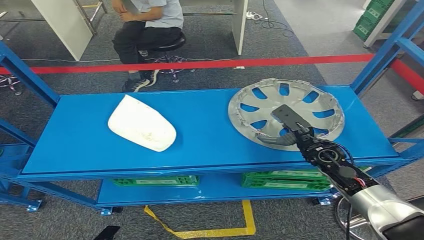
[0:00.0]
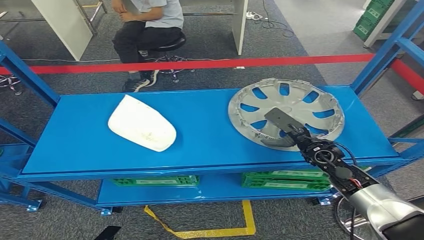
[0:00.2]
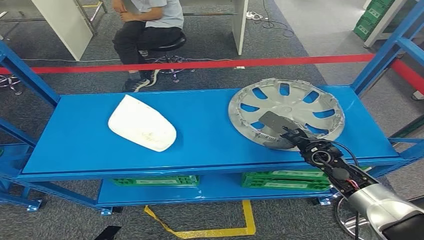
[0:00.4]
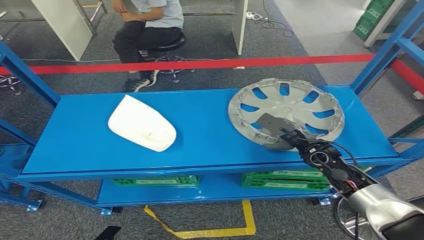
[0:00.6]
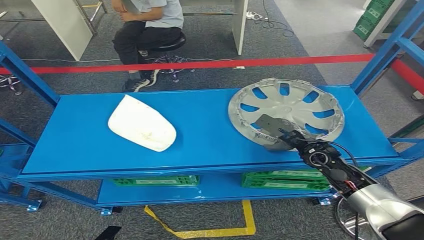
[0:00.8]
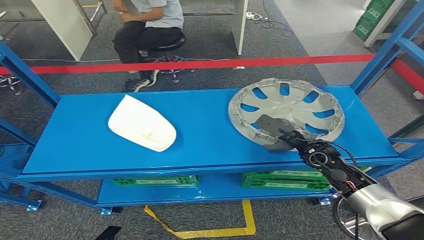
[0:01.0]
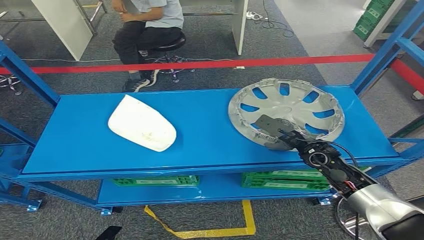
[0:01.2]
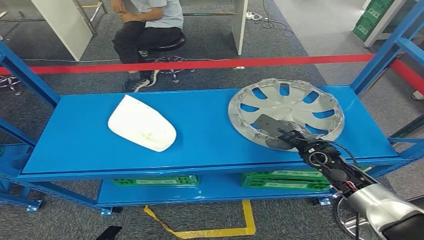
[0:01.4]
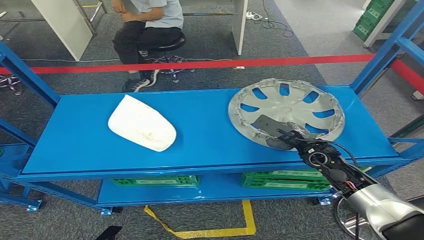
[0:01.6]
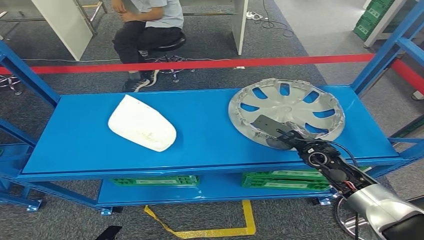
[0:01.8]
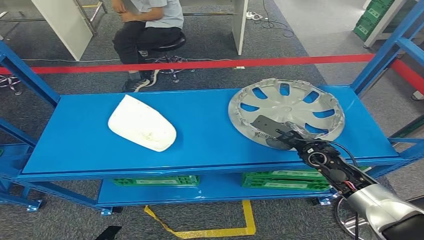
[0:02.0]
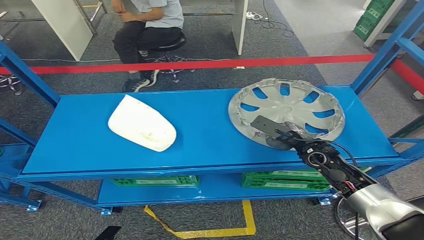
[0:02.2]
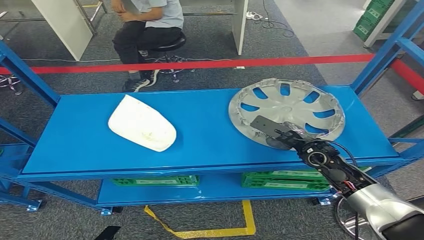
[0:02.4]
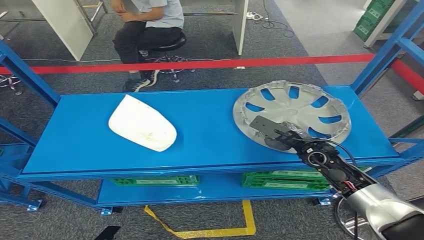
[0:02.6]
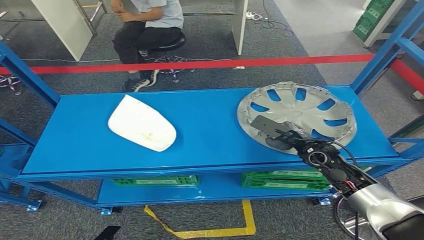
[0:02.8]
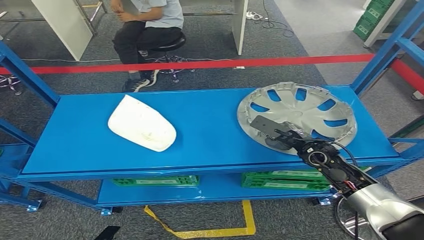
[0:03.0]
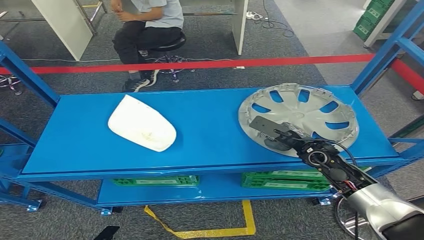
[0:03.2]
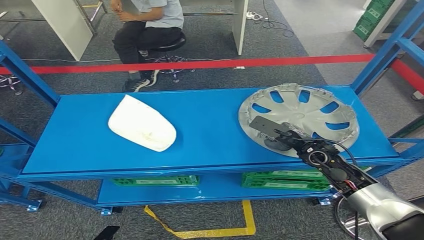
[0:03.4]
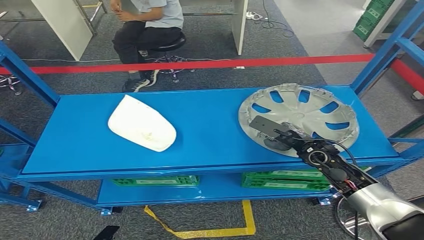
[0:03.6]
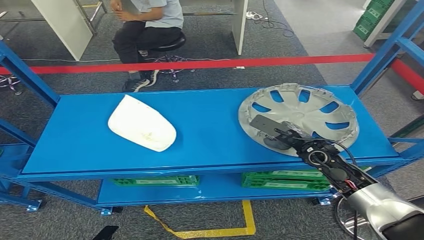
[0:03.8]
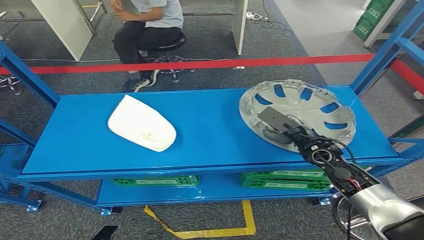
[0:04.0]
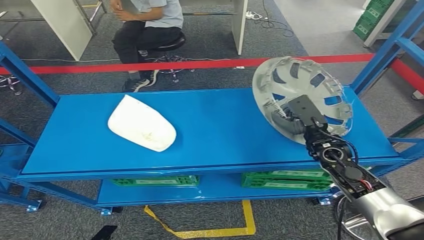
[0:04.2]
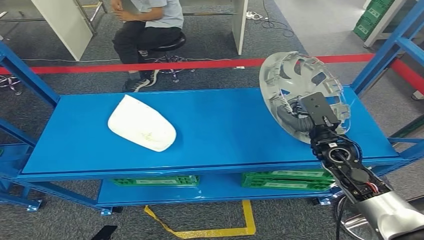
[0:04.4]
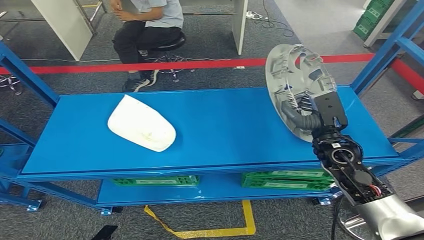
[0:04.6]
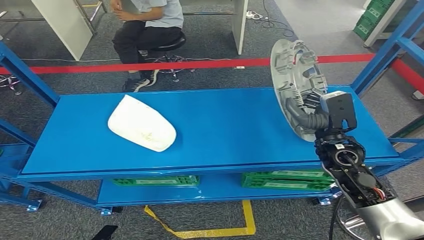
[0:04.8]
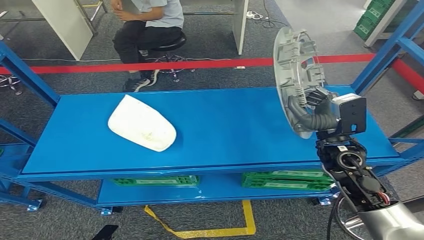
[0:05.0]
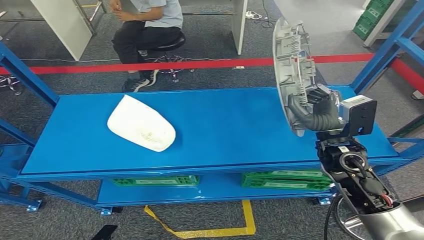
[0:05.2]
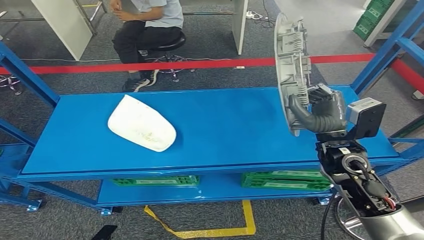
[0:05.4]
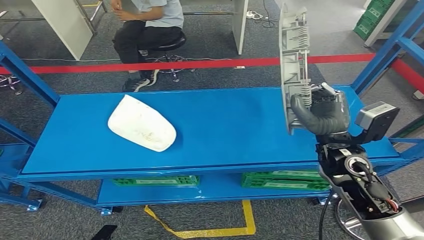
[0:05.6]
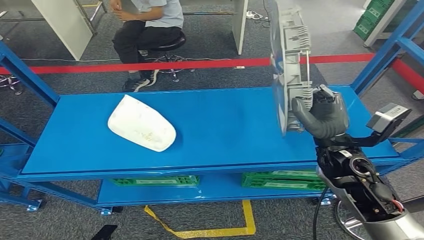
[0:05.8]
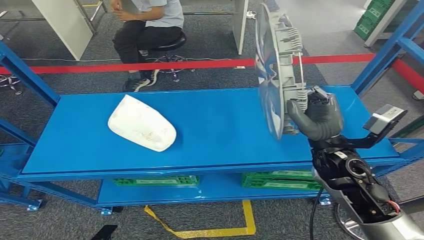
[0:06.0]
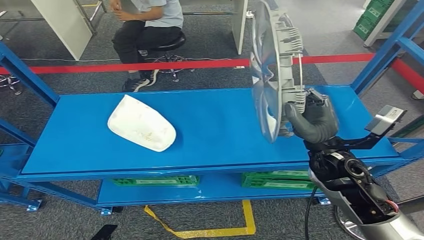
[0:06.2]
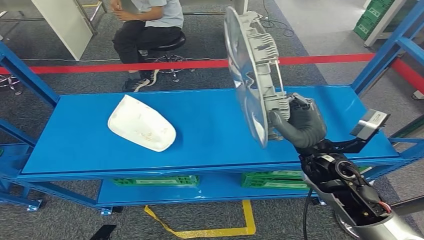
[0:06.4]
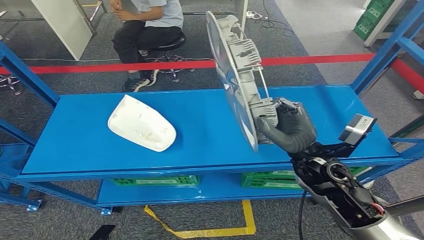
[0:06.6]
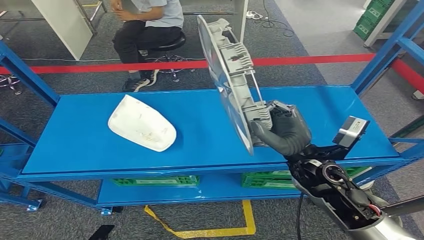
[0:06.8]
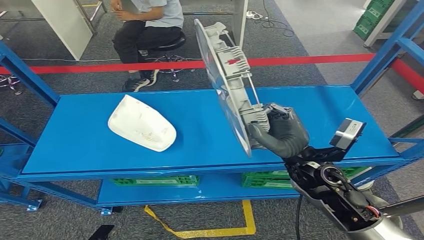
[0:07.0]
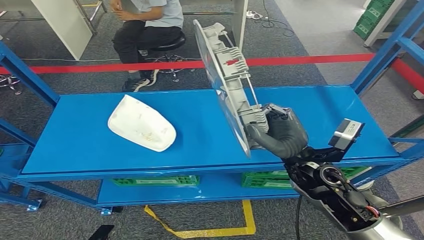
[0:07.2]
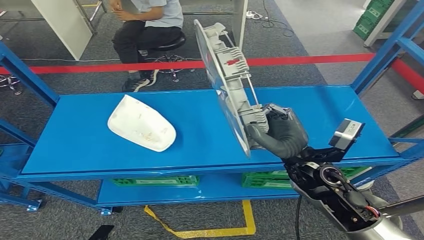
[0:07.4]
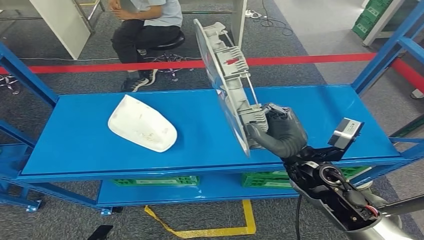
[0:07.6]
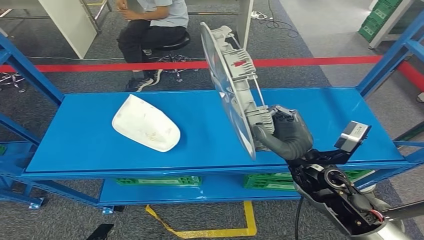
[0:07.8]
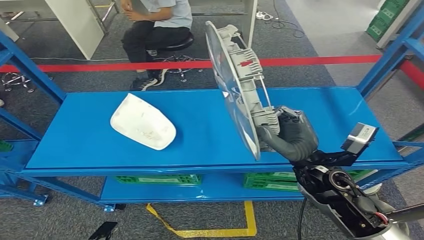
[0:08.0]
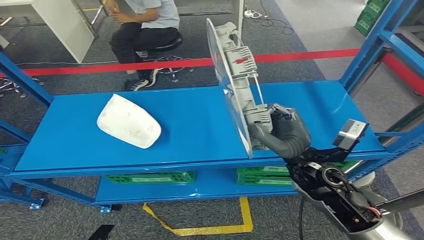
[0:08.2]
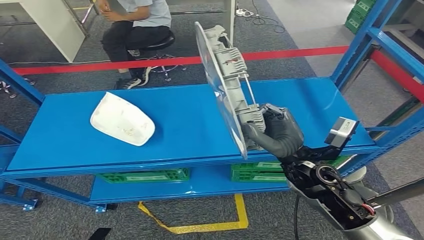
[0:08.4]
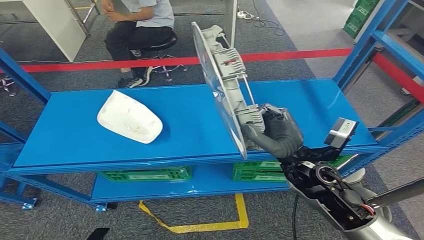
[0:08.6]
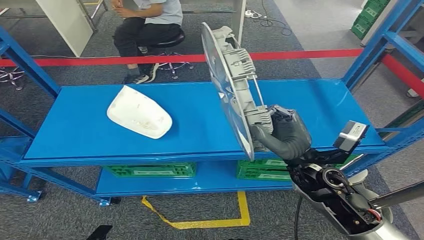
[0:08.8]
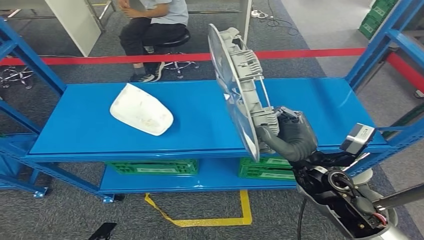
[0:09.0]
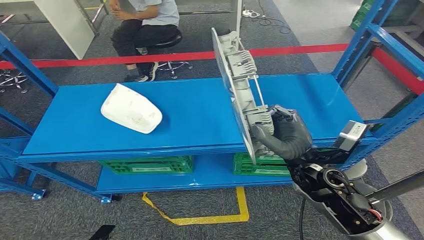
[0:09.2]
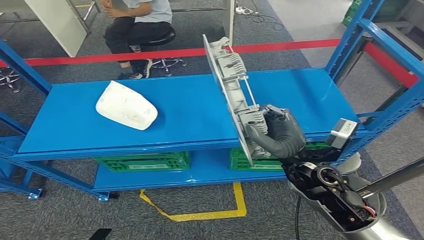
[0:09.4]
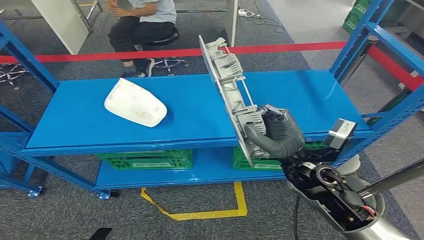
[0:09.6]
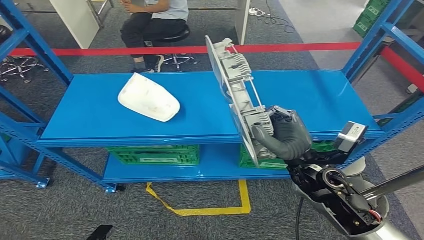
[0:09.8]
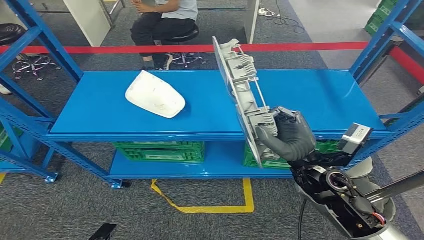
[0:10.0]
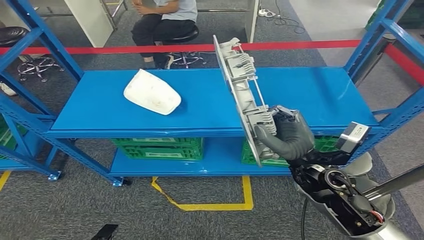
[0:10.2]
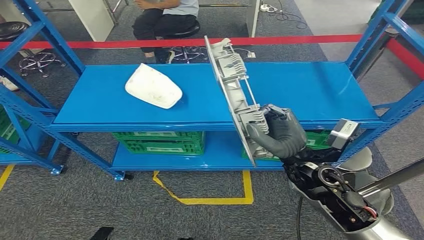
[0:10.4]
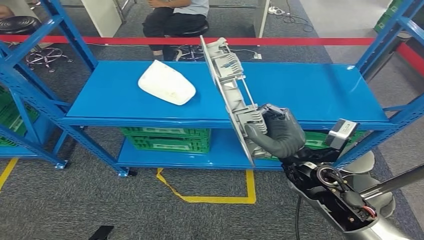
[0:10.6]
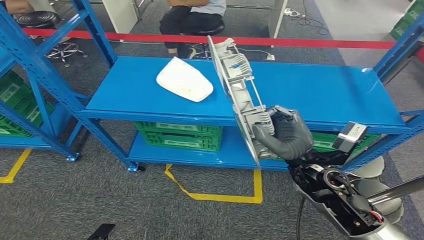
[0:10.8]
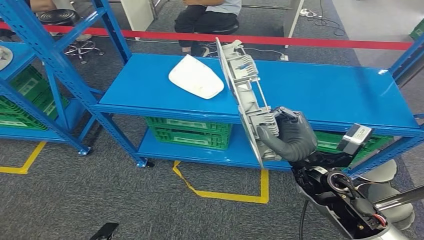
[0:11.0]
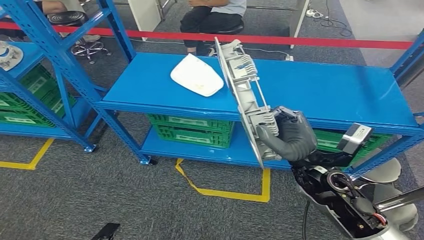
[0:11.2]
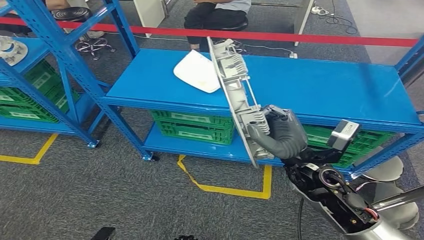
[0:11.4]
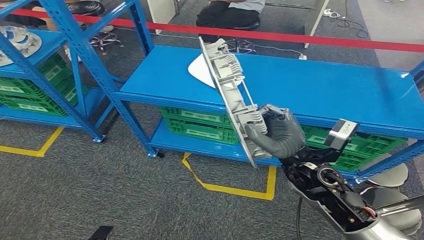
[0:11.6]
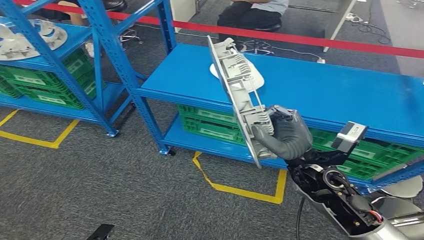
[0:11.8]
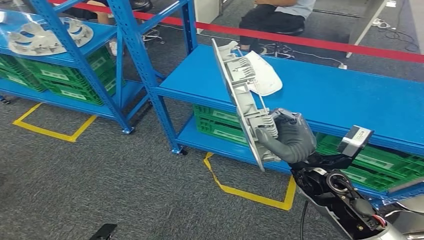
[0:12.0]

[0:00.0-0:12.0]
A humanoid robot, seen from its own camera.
Step, 0:00.0 to 0:06.6: Pick up the small parts from the shelf.
0:01.6 to 0:03.0: Both hands stay put.
0:04.4 to 0:06.0: The right hand goes approximately 10 cm backward and upward.
0:06.0 to 0:07.6: The right hand changes place by roughly 5 cm.

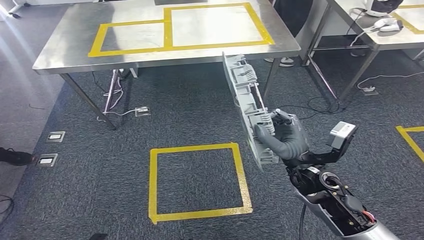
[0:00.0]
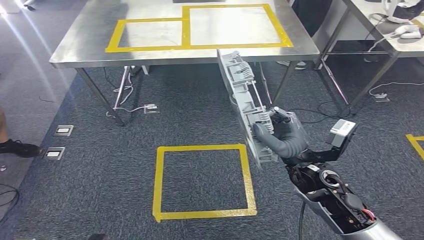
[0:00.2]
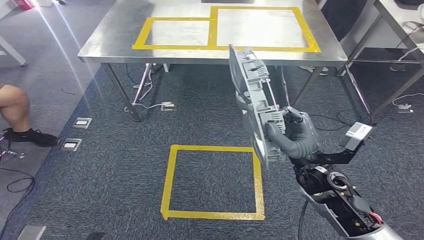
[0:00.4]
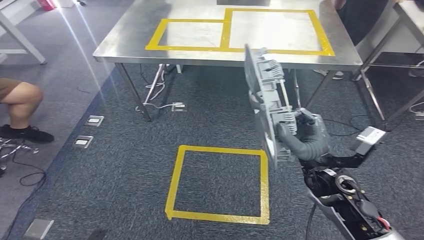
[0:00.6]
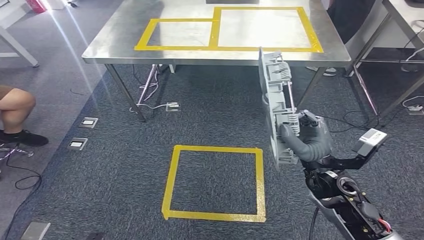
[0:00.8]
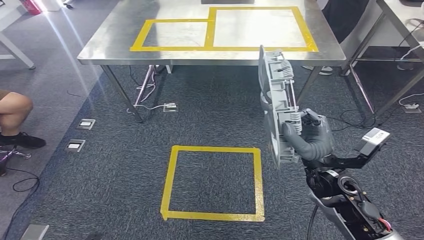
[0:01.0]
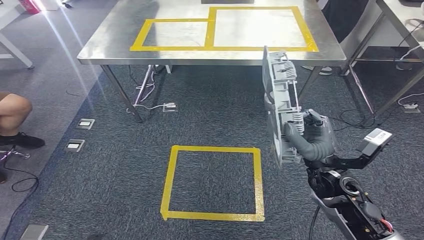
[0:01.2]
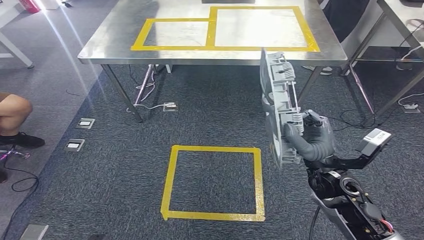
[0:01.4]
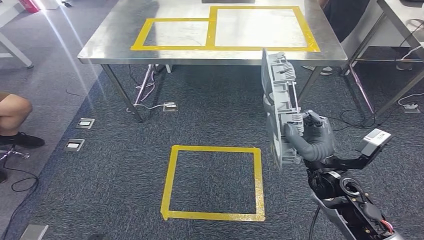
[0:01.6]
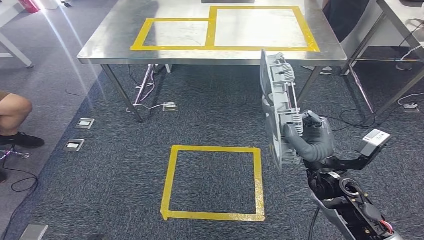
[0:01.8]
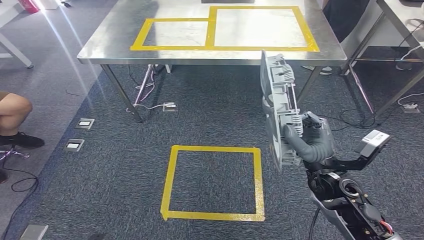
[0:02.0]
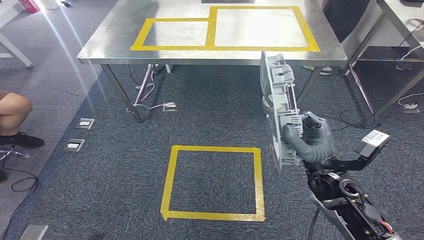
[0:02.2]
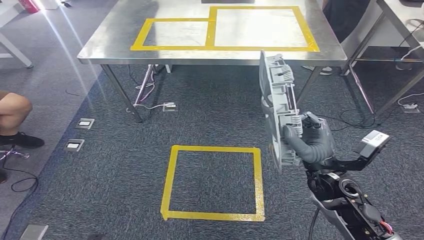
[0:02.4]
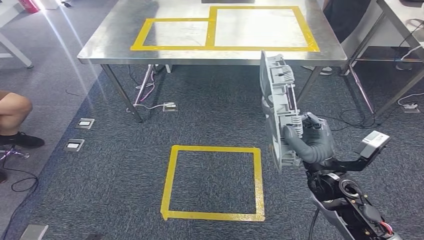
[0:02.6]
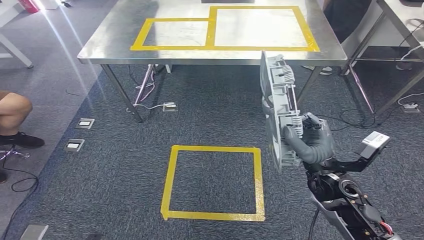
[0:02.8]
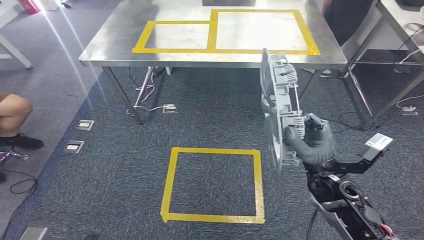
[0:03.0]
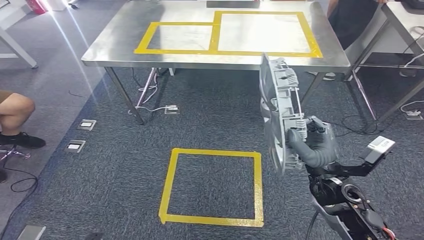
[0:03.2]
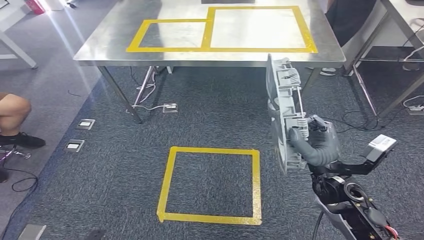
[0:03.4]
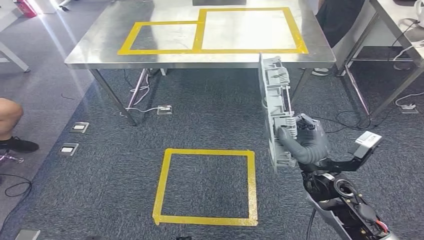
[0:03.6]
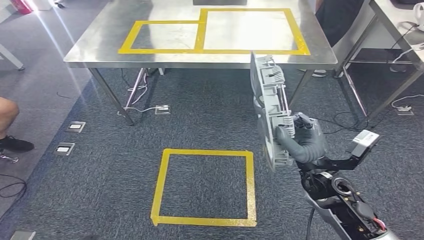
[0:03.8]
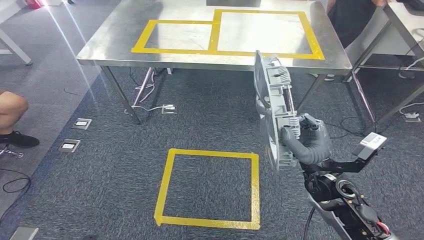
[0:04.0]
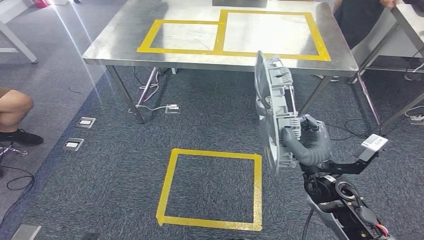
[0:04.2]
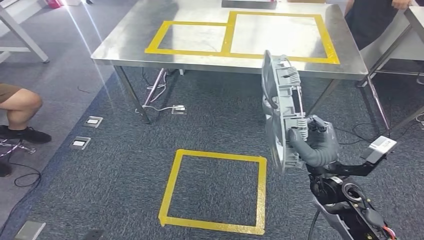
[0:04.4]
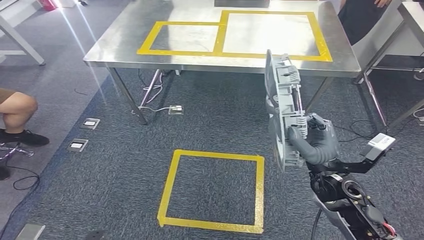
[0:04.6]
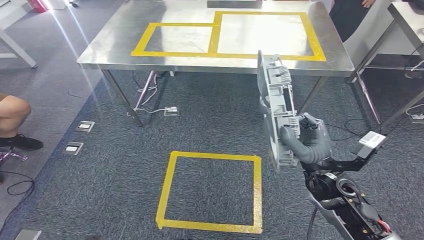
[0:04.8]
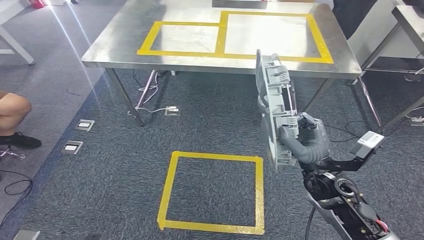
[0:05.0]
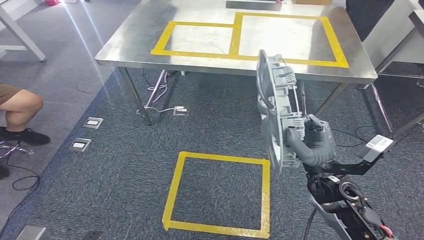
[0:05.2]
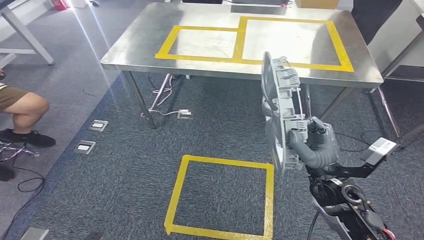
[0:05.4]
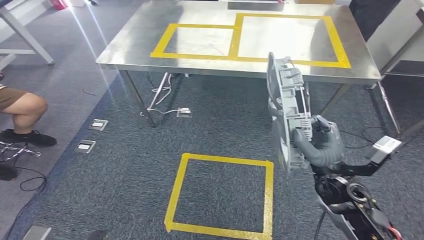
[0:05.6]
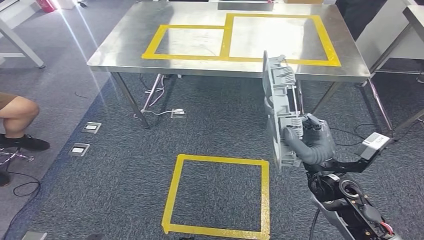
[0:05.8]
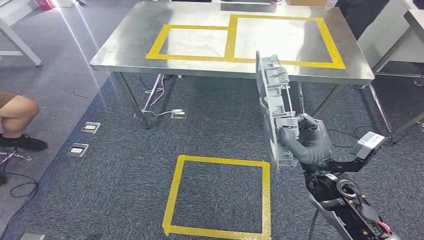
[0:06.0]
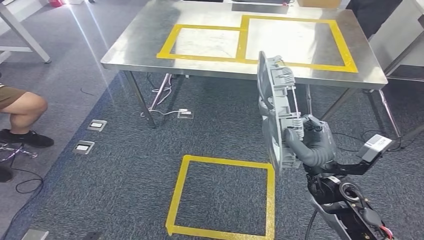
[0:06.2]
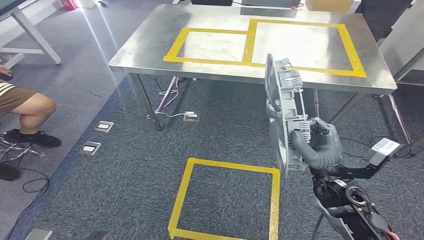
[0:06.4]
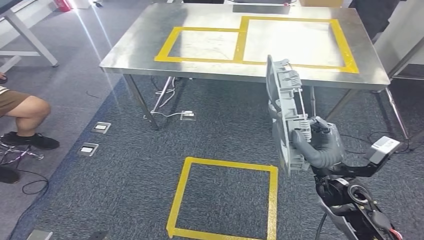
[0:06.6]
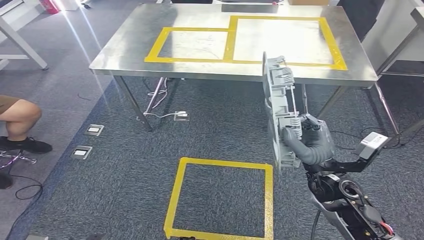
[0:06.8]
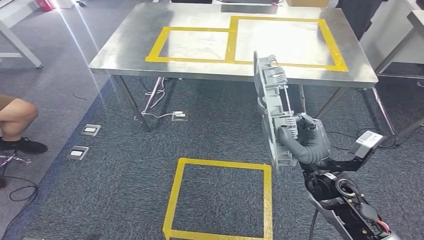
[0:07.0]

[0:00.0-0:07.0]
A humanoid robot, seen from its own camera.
0:01.4 to 0:02.8: The two hands keep their place.
